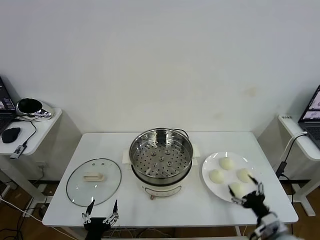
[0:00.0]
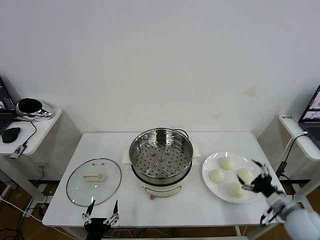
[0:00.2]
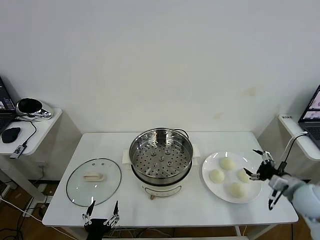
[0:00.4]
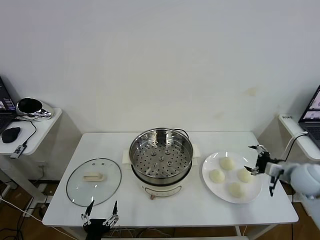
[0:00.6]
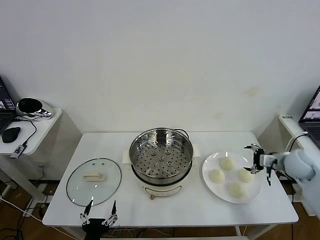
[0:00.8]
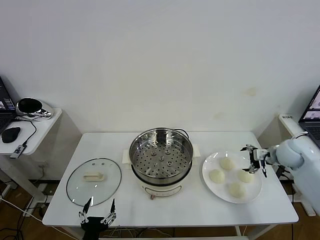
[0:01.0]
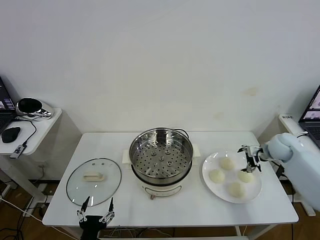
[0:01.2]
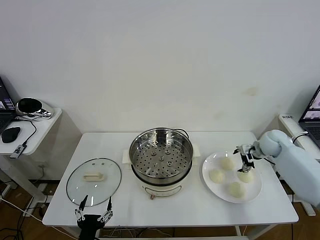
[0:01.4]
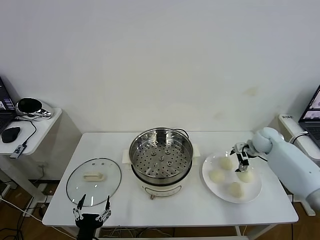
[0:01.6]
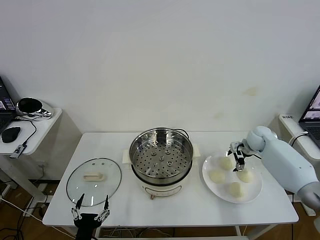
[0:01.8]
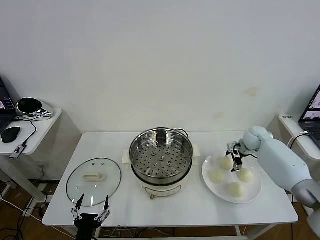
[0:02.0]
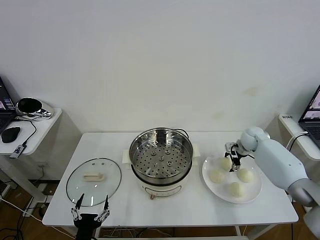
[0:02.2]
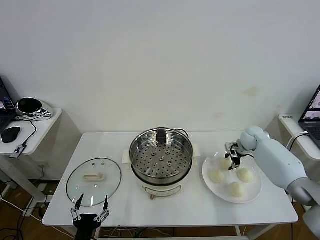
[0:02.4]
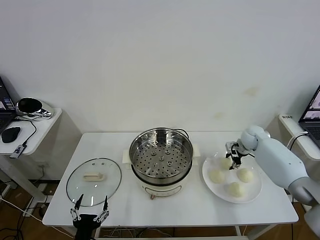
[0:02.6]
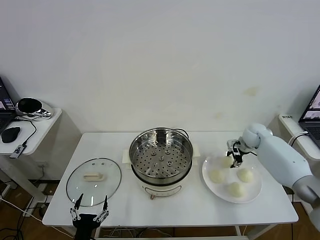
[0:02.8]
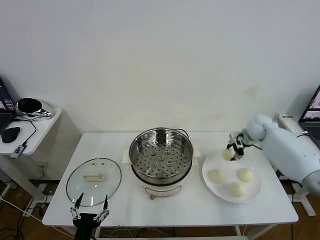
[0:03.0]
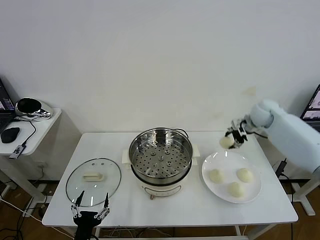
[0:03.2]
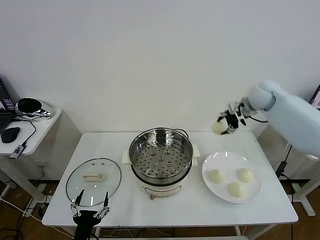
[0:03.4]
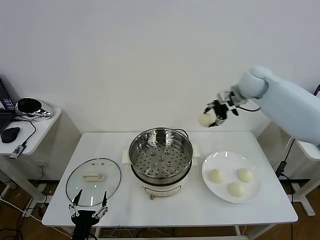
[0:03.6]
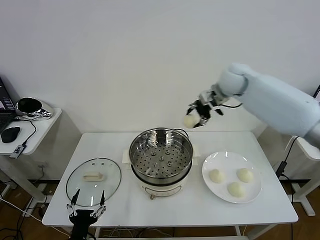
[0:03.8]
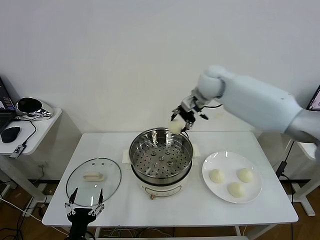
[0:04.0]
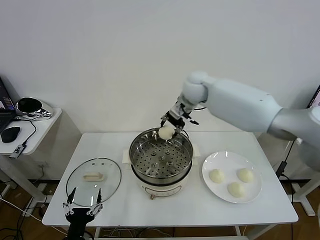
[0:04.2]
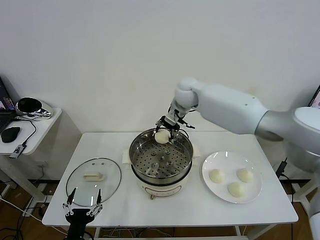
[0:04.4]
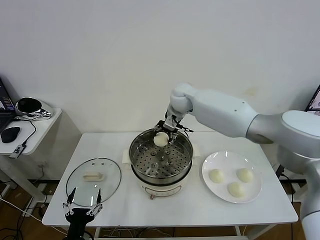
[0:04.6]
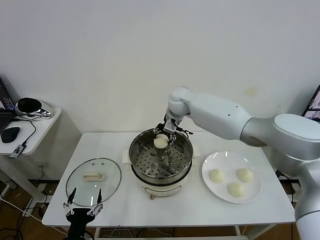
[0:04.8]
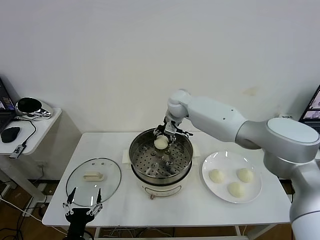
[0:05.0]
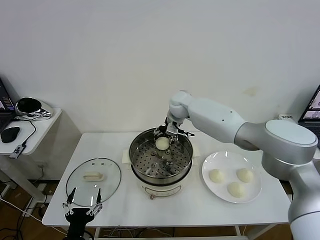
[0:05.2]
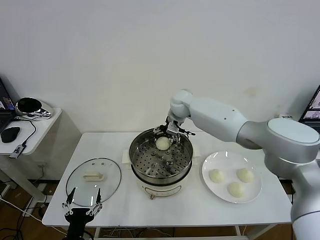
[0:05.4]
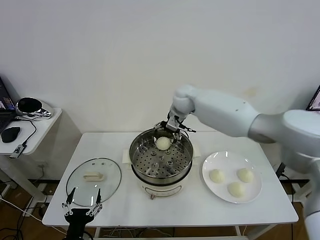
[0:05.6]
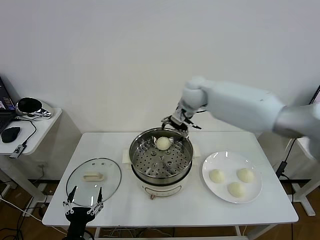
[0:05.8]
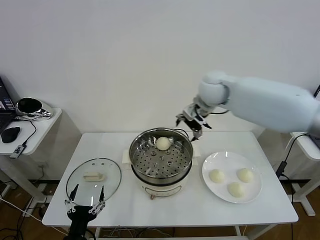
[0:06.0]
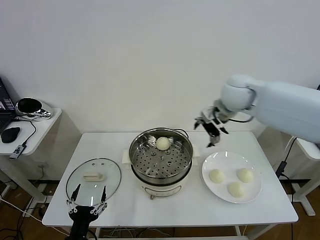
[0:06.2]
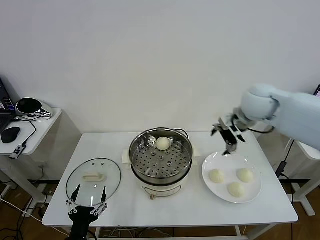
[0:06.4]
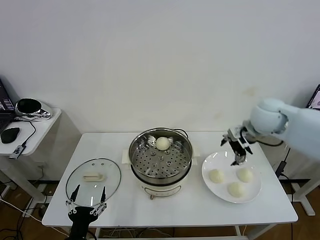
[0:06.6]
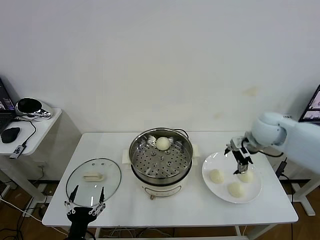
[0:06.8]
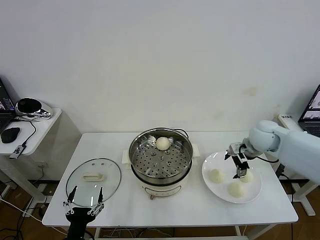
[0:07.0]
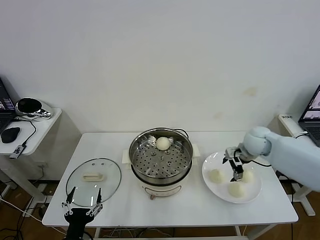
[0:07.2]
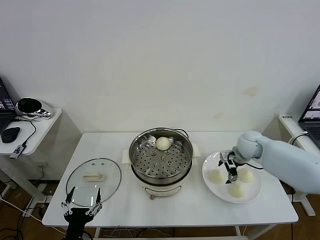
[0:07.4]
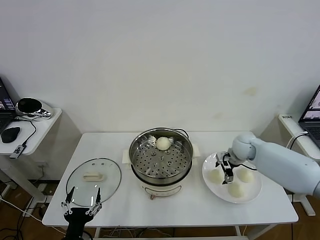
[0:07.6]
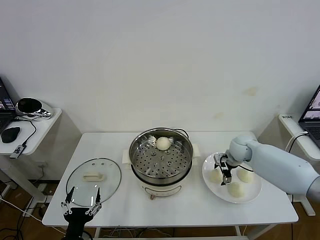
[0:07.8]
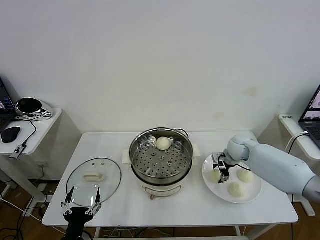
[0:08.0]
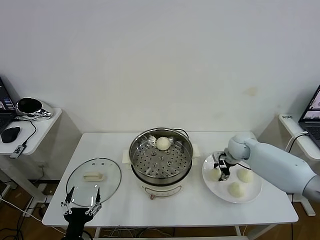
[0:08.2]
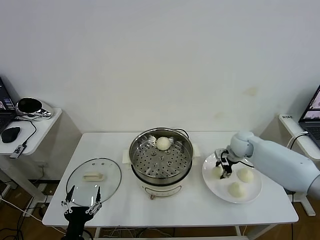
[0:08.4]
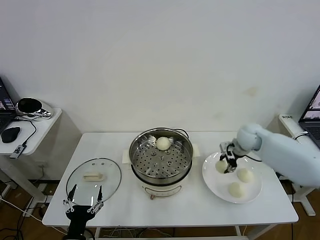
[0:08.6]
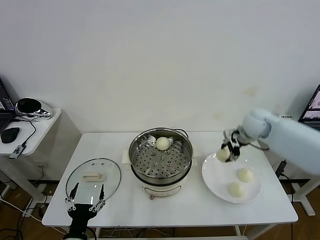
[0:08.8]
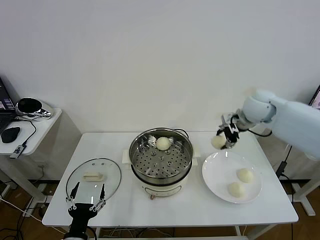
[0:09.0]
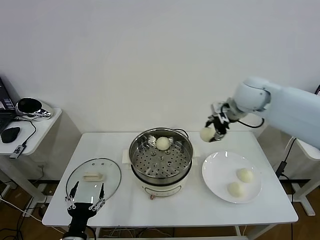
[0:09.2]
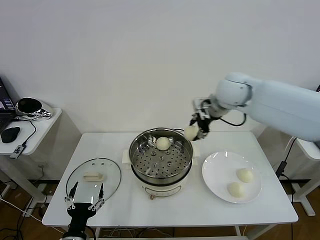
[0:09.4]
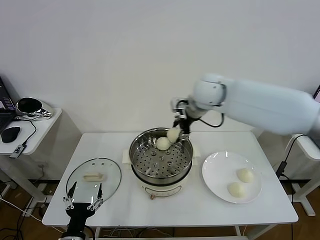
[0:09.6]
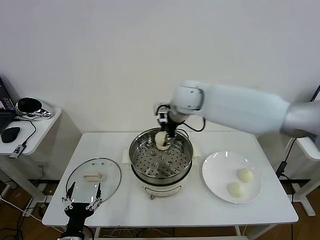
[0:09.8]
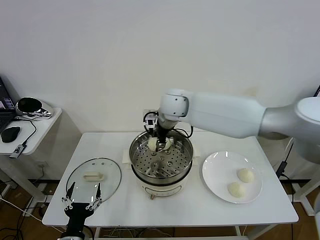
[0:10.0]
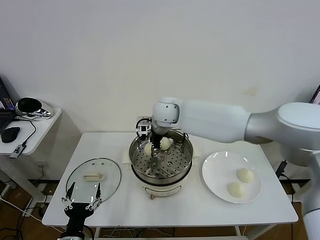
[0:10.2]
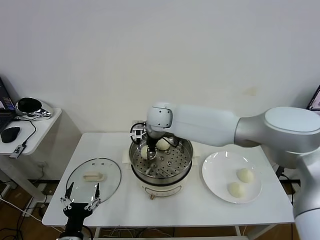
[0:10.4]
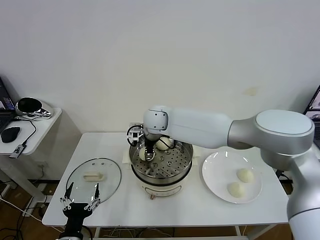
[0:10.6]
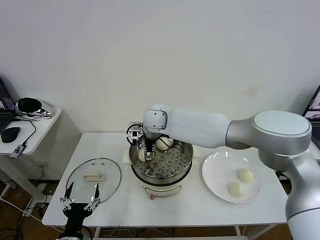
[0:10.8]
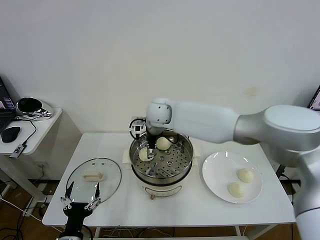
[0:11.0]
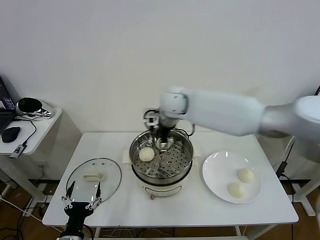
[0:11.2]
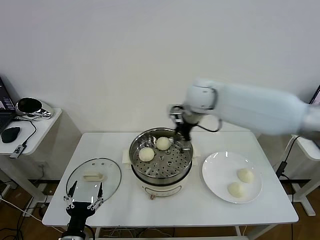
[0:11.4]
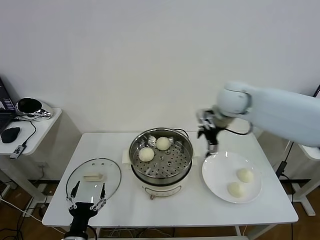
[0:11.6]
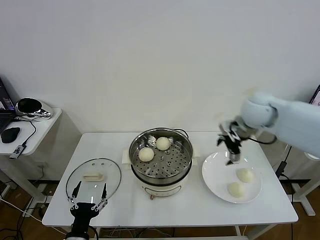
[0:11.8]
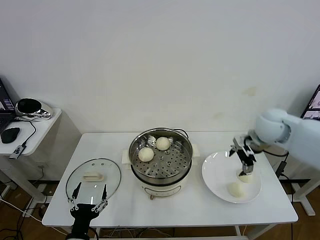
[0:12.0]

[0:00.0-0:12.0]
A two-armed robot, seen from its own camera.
Task of the whole recording: take steamed baozi put them in steamer then cover it.
Step, 0:00.0 to 0:02.2: Grasp the baozi in the plate with right gripper.
Step, 0:02.6 to 0:05.4: Place the baozi on the steamer with right gripper.
Step, 0:05.6 to 0:08.0: Grasp the baozi in the plate with right gripper.
Step, 0:08.4 to 0:11.0: Place the baozi on the steamer with right gripper.
0:01.6 to 0:03.0: The right gripper moves upward, approximately 10 cm, and closes.
0:03.0 to 0:04.4: The right gripper goes some 30 cm to the left.
0:04.4 to 0:06.0: The right gripper travels to the right, backward and upward by roughly 15 cm, and opens its fingers.
0:06.0 to 0:07.6: The right gripper heads downward and to the right, covering some 25 cm.
0:07.6 to 0:09.0: The right gripper is displaced upward by about 20 cm, and closes up.
0:09.0 to 0:10.4: The right gripper heads to the left, covering roughly 30 cm.
0:10.4 to 0:12.0: The right gripper is displaced to the right by roughly 35 cm, and opens up.

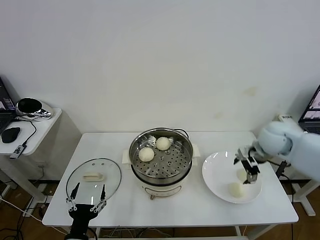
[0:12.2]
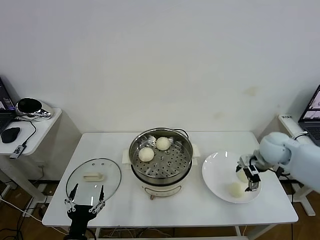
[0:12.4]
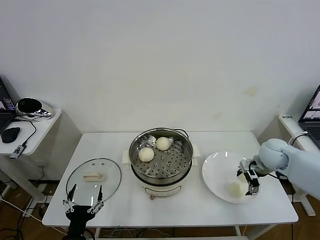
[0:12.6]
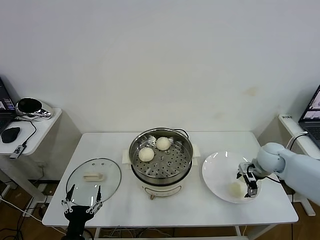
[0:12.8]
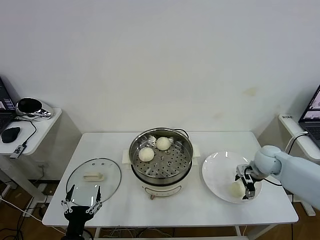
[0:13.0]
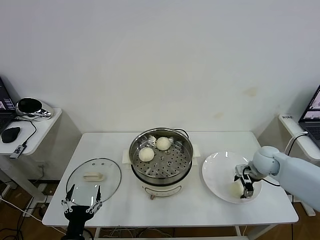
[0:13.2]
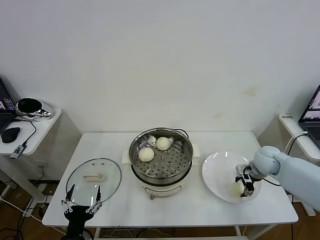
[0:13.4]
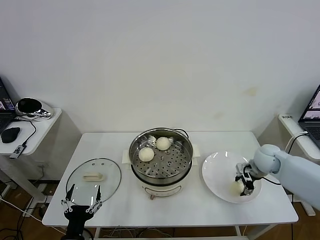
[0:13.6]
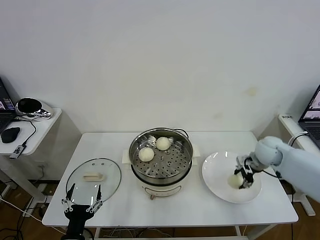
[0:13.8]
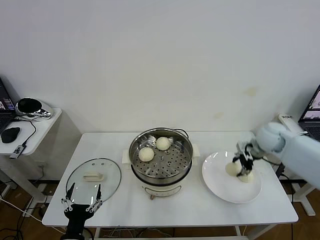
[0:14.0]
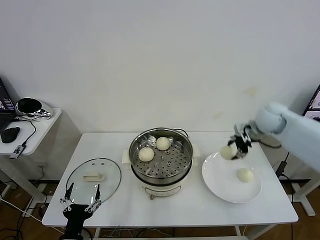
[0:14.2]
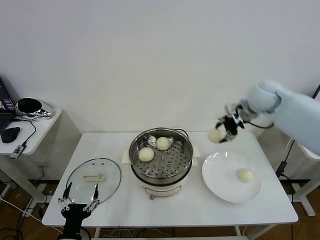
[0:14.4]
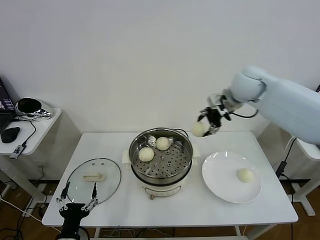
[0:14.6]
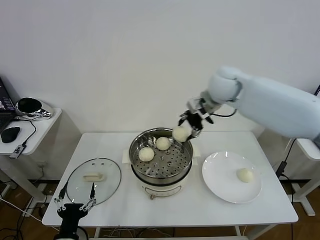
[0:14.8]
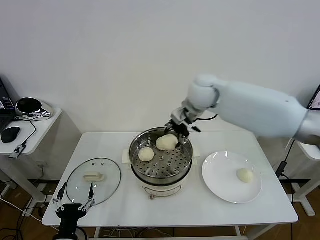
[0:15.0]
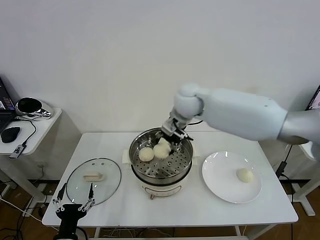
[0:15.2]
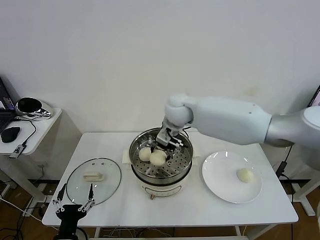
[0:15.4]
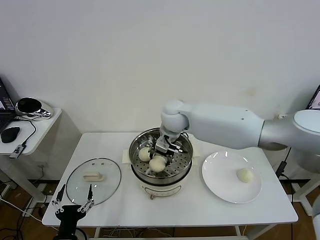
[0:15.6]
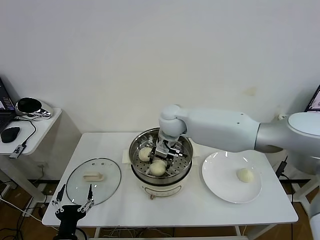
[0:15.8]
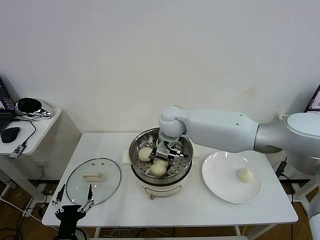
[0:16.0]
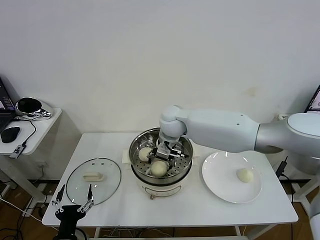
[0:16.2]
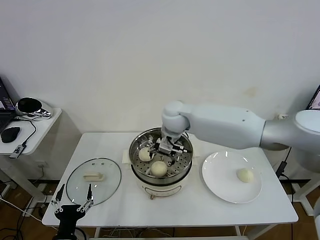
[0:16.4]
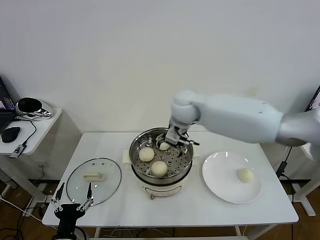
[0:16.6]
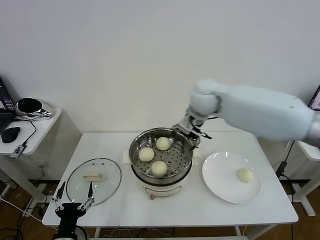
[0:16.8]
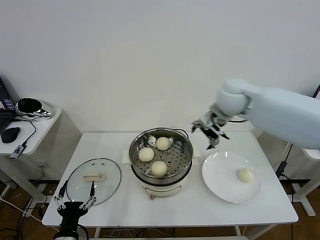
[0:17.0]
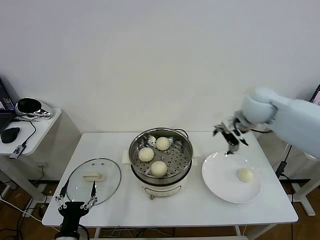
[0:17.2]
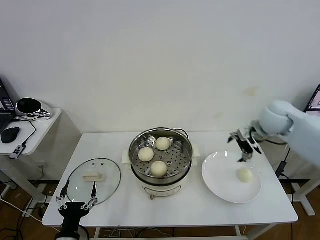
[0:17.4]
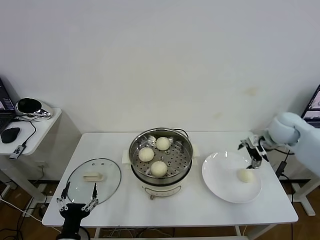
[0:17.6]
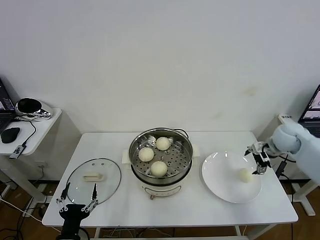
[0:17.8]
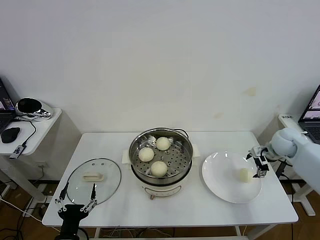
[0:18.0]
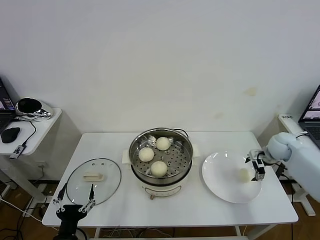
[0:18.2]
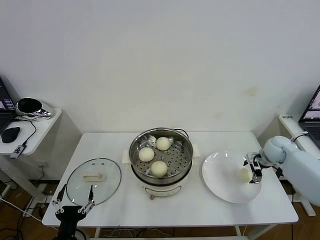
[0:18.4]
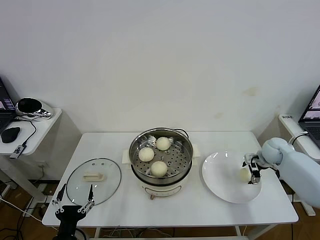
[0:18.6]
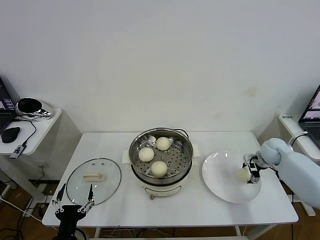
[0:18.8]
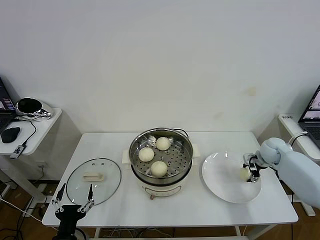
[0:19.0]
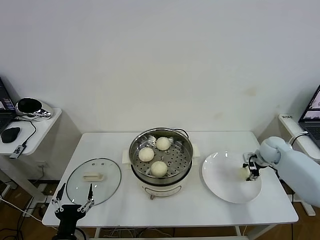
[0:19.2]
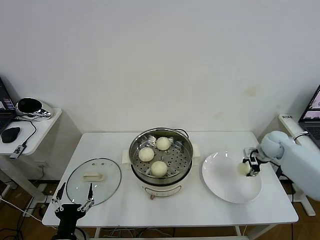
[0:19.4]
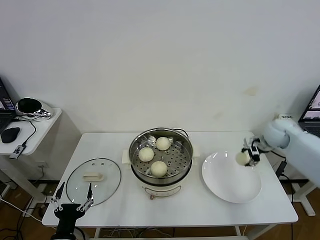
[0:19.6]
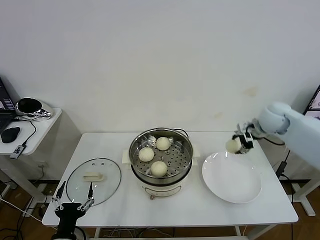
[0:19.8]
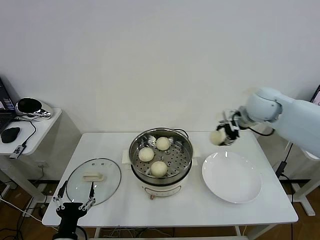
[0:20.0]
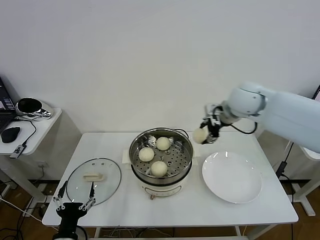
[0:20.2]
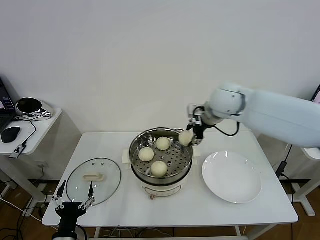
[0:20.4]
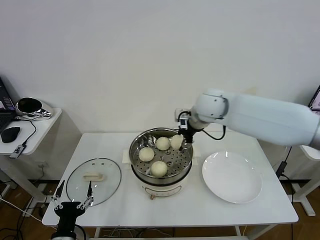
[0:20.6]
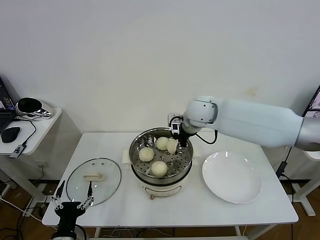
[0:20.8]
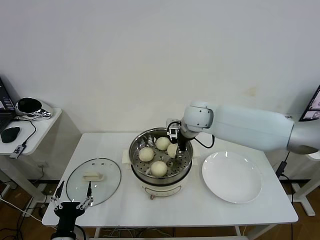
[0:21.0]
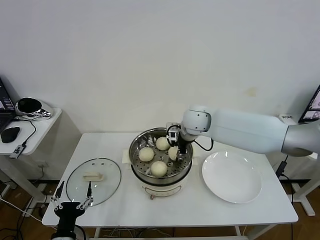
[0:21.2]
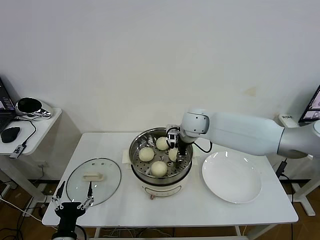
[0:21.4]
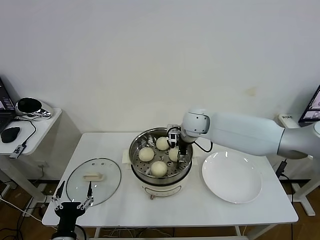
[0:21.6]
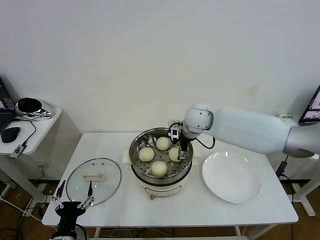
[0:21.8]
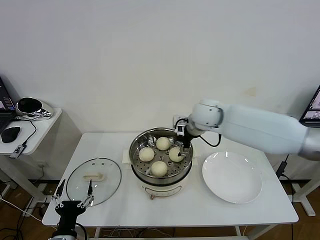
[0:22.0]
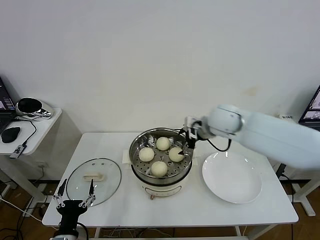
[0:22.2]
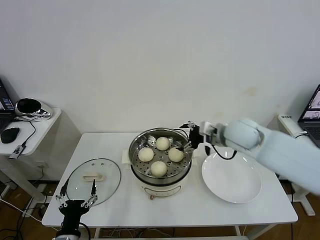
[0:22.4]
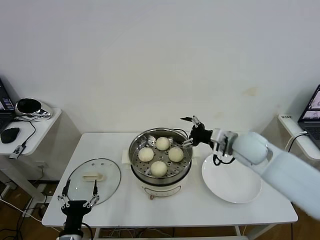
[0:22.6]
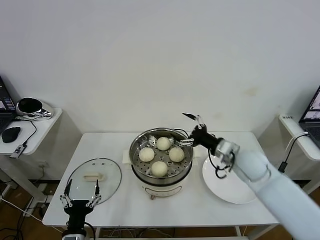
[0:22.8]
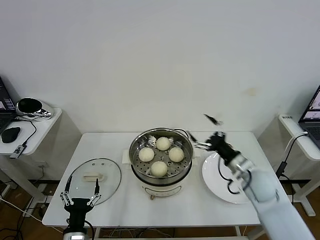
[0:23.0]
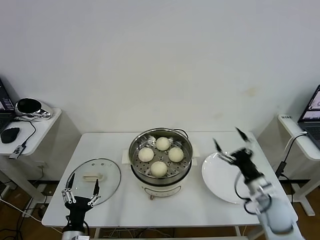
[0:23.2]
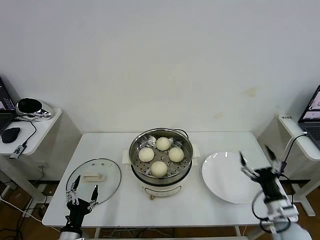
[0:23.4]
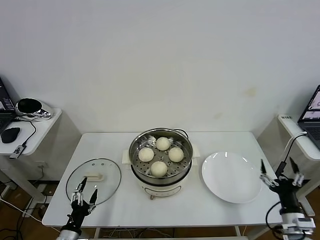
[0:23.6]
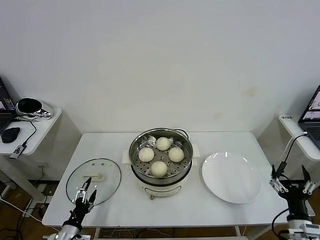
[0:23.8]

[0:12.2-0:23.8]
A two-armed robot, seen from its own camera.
Task of the whole recording: take steamed baozi put them in steamer then cover it.
Step, 0:12.2 to 0:13.4: Grasp the baozi in the plate with right gripper.
Step, 0:13.6 to 0:16.2: Place the baozi on the steamer with right gripper.
Step, 0:16.6 to 0:19.0: Grasp the baozi in the plate with right gripper.
Step, 0:19.2 to 0:22.0: Place the baozi on the steamer with right gripper.
0:12.2 to 0:13.6: The right gripper moves downward, approximately 10 cm, and closes.
0:13.6 to 0:15.0: The right gripper travels to the left and upward by approximately 35 cm.
0:15.0 to 0:16.6: The right gripper moves approximately 10 cm downward and comes back, and opens up.
0:16.6 to 0:18.0: The right gripper moves to the right and downward, roughly 40 cm.
0:18.0 to 0:19.4: The right gripper closes.
0:19.4 to 0:21.0: The right gripper is displaced to the left by approximately 30 cm.
0:21.0 to 0:22.4: The right gripper goes approximately 15 cm to the right and backward, and opens its fingers.
0:22.4 to 0:23.8: The right gripper travels backward, downward and to the right by roughly 40 cm, while the left gripper is displaced downward and to the left by roughly 10 cm.
